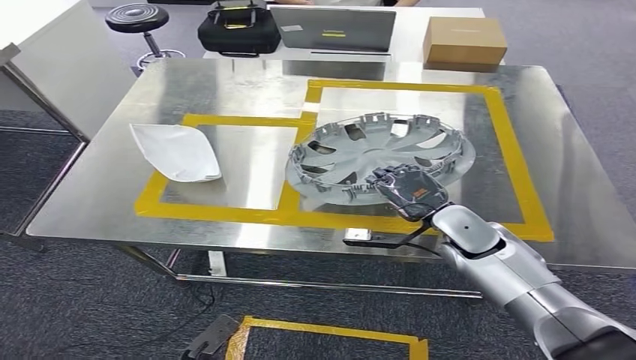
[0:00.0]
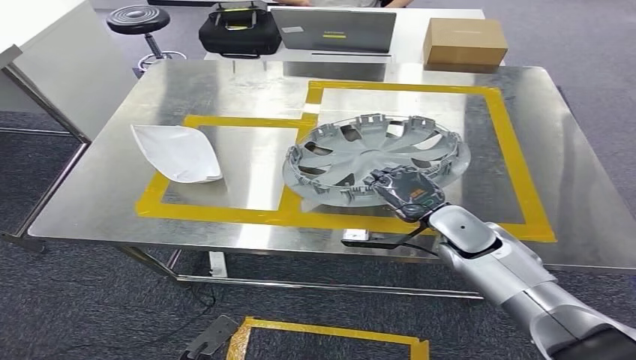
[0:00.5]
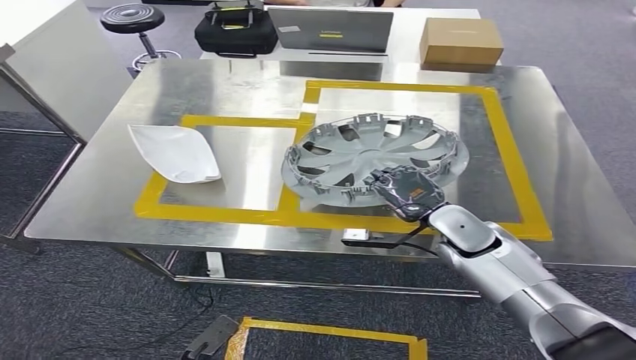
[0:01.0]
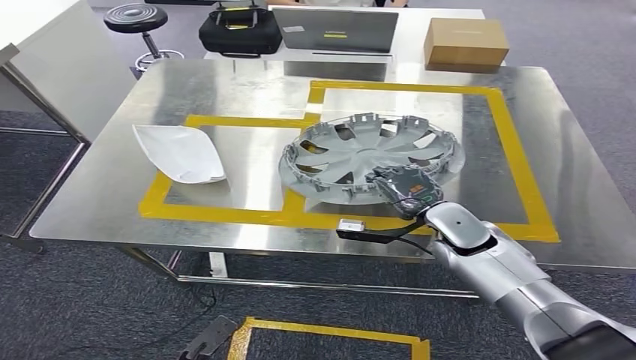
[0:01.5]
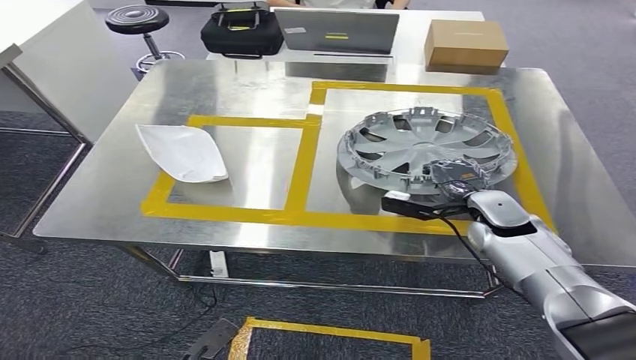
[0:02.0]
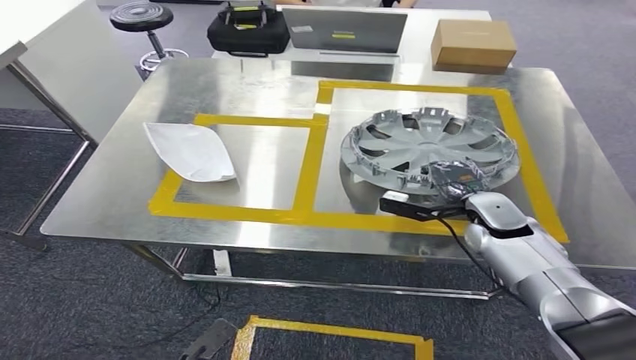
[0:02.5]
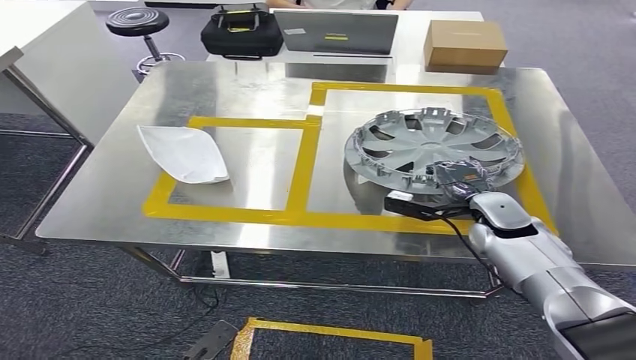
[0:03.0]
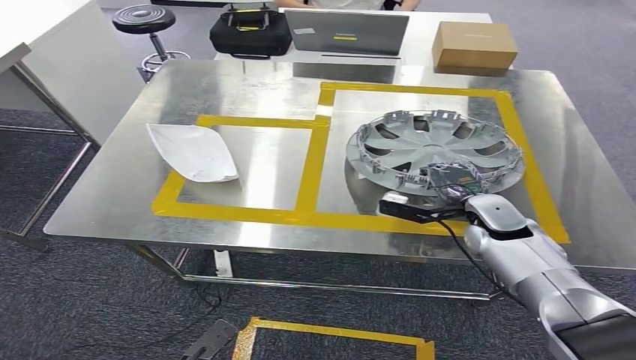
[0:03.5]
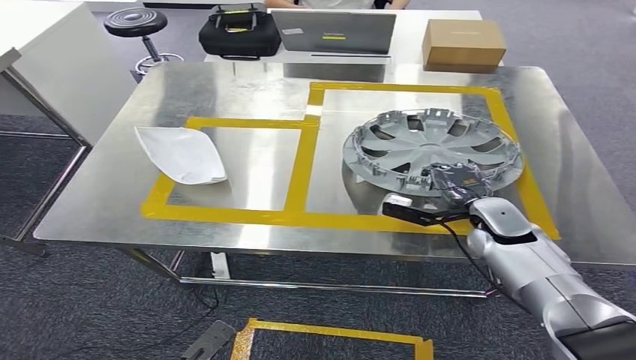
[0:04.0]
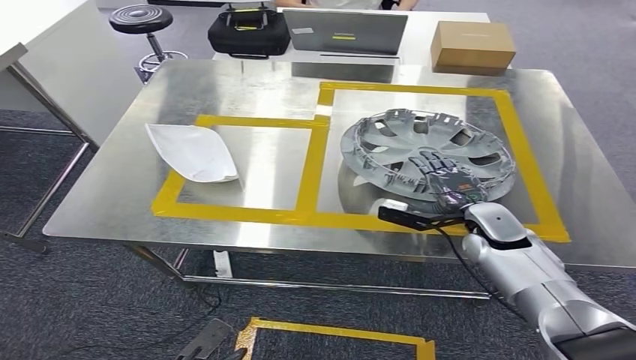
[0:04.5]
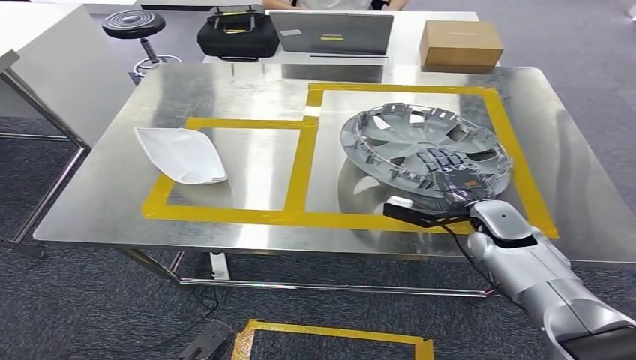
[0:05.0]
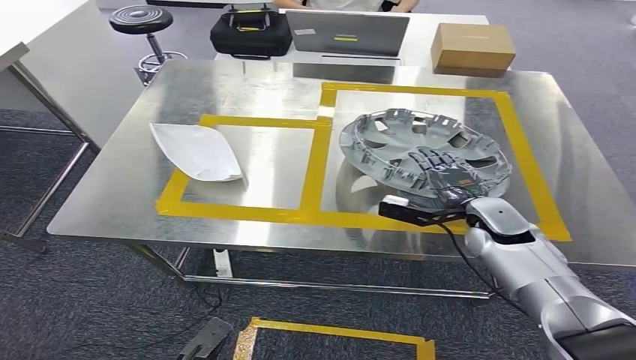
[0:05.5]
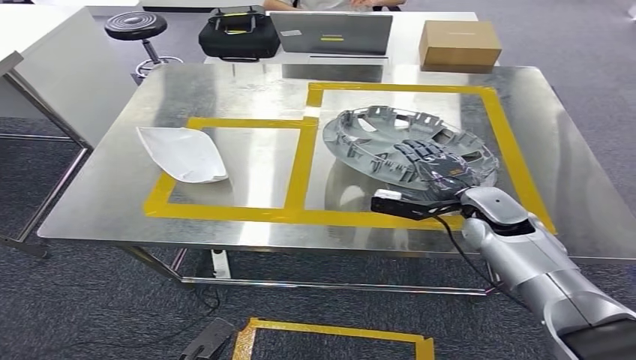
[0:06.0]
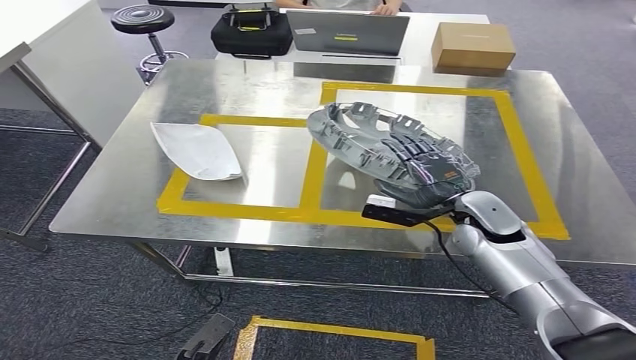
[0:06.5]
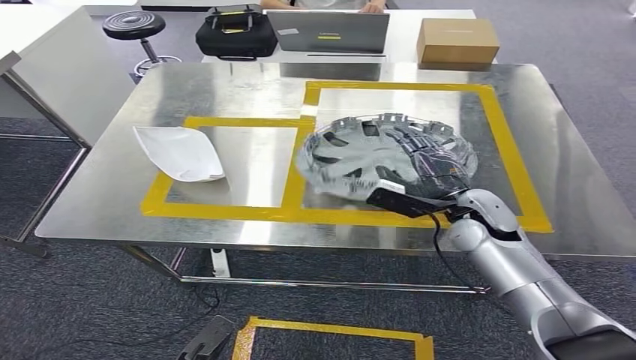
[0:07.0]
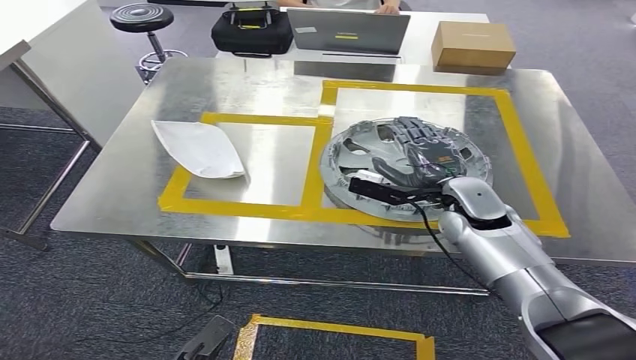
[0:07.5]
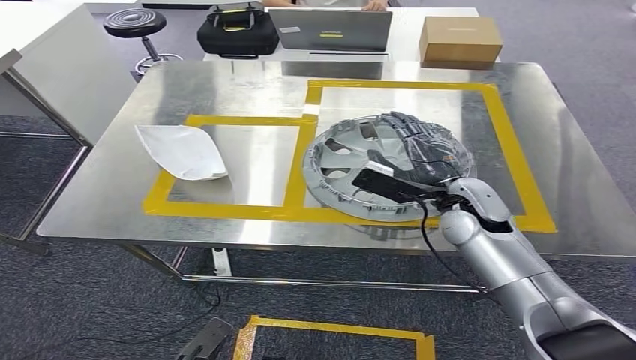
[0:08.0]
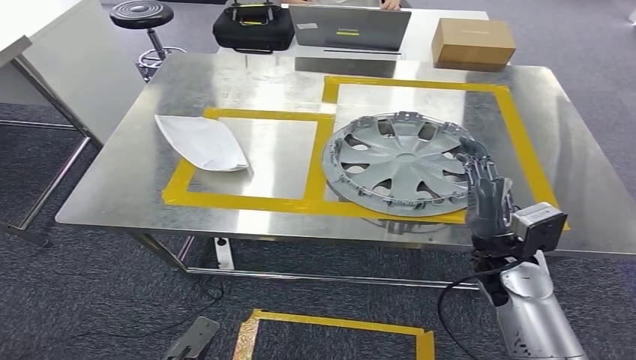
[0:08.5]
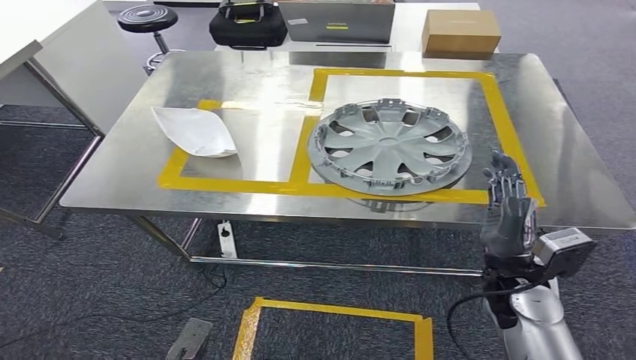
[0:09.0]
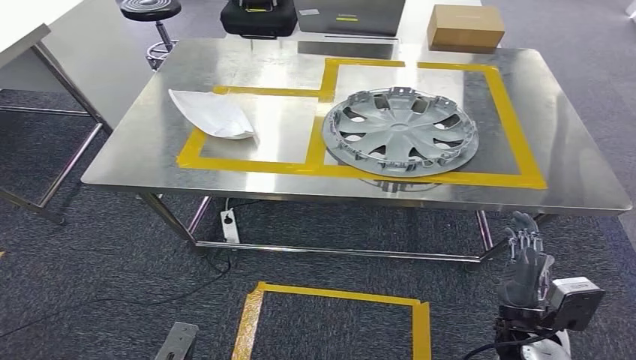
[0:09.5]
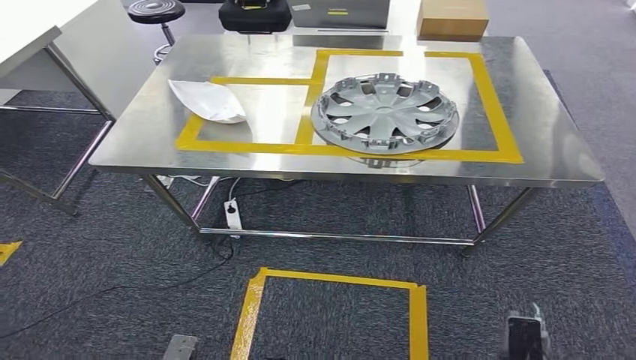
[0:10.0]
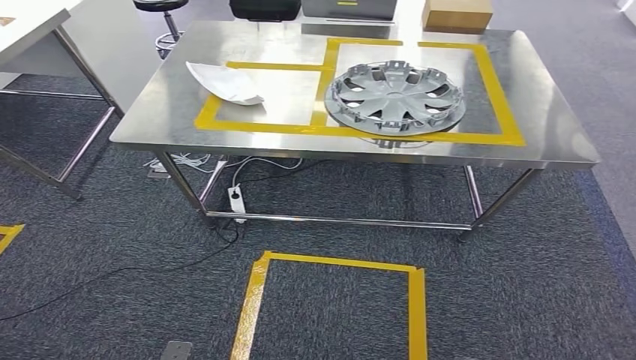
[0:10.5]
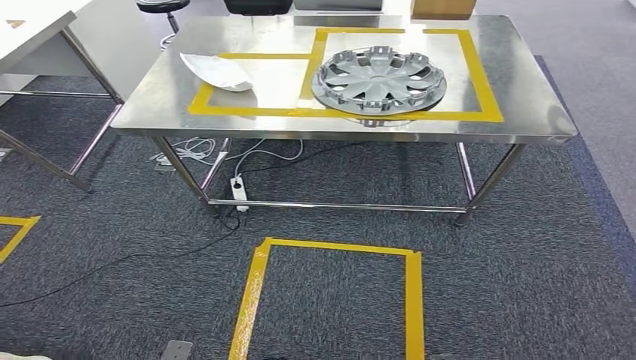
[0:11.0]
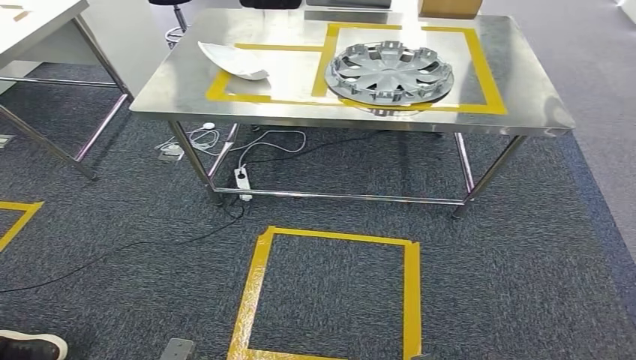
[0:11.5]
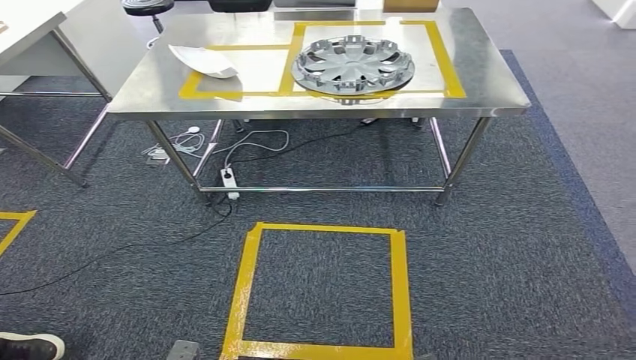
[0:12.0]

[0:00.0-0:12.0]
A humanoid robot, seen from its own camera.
Step, 0:00.0 to 0:08.0: Insert the small parts into the corresponding slots on the workbench.
0:00.0 to 0:02.0: The right hand shifts roughly 5 cm to the right.
0:02.0 to 0:06.0: The hands stay close to where they were, moving slightly.

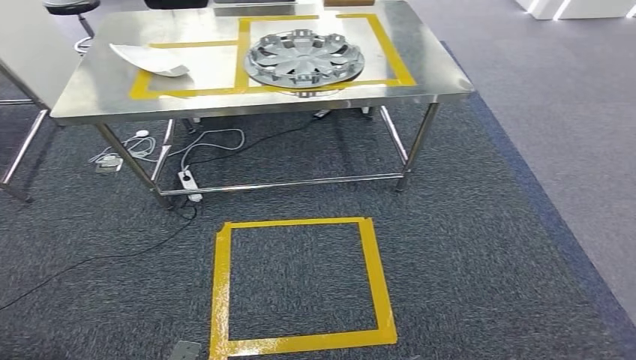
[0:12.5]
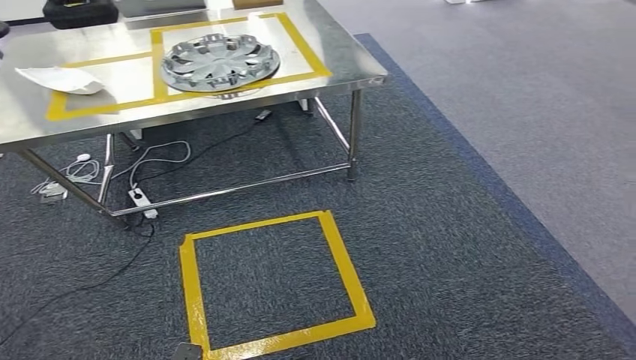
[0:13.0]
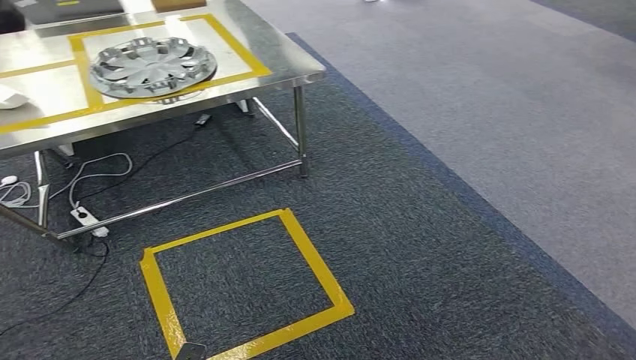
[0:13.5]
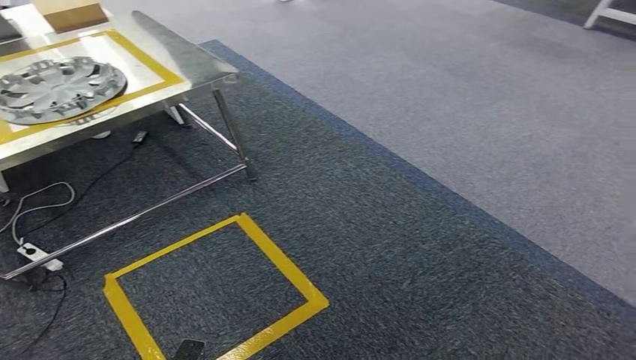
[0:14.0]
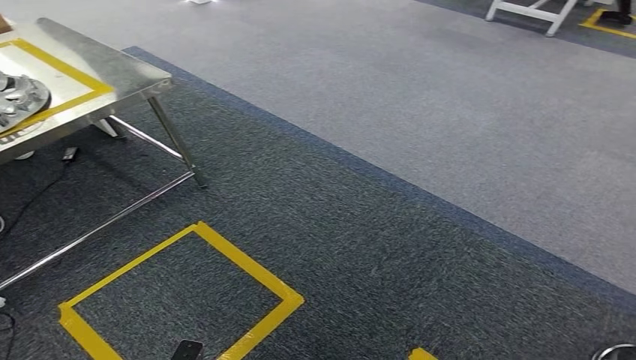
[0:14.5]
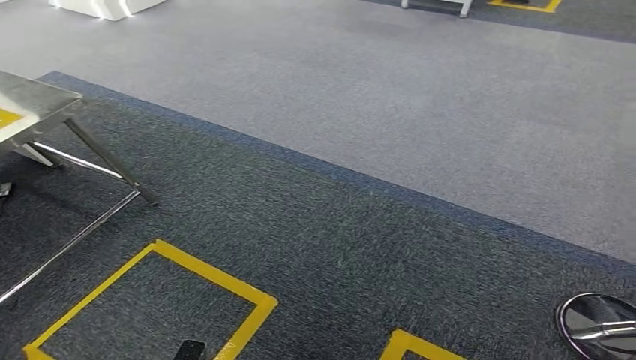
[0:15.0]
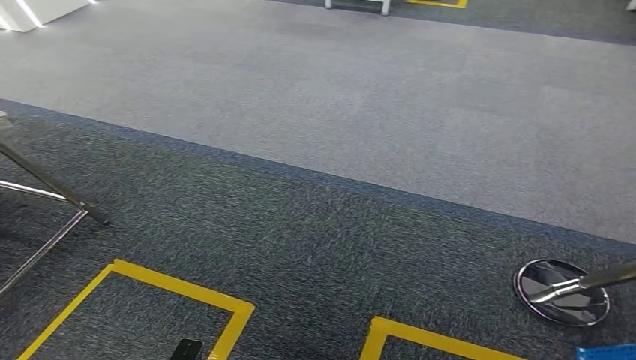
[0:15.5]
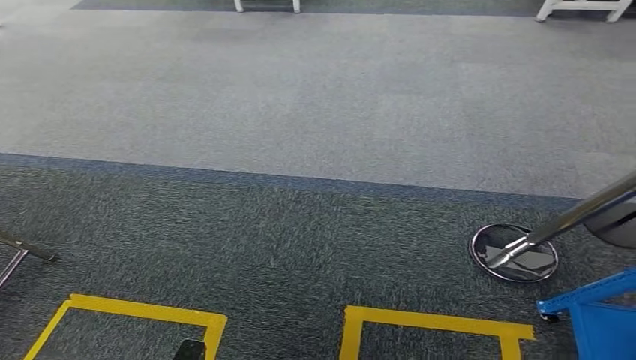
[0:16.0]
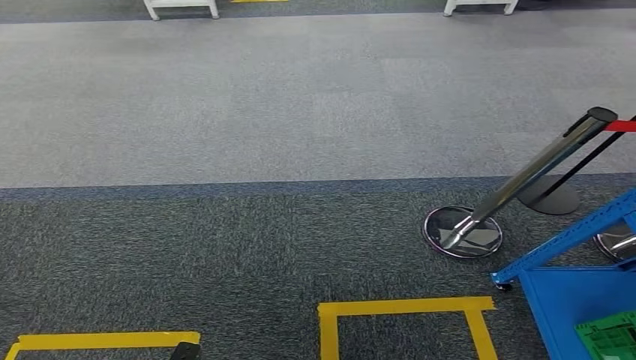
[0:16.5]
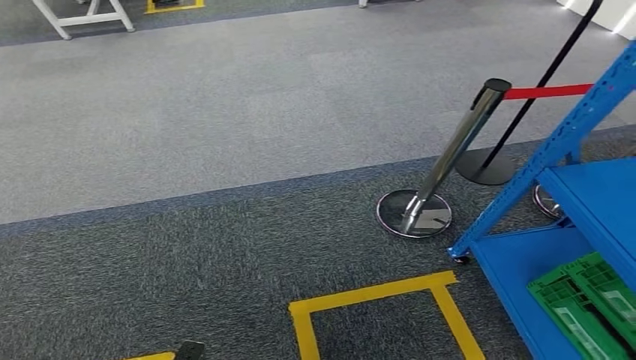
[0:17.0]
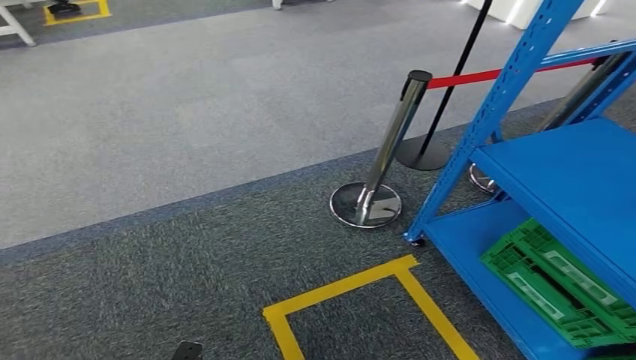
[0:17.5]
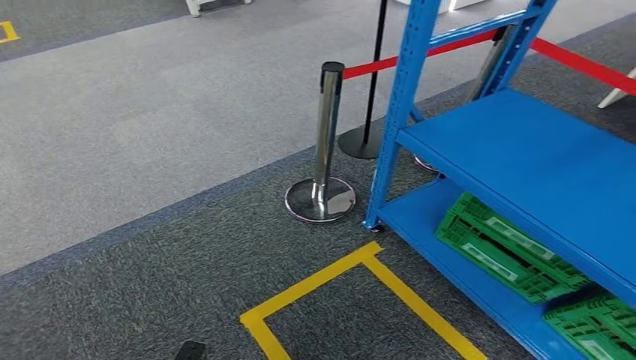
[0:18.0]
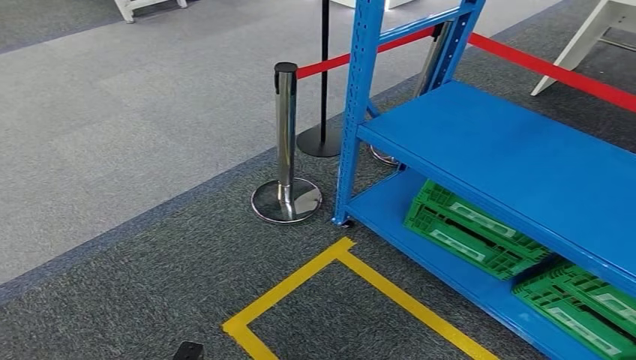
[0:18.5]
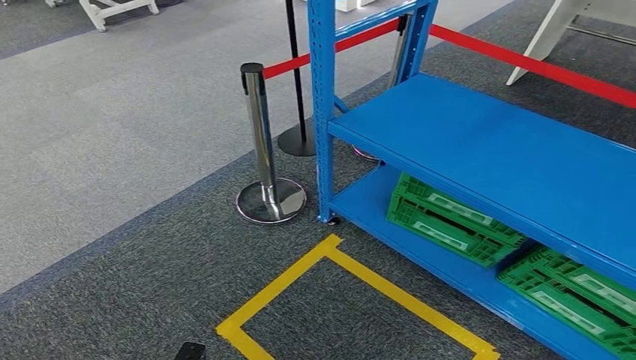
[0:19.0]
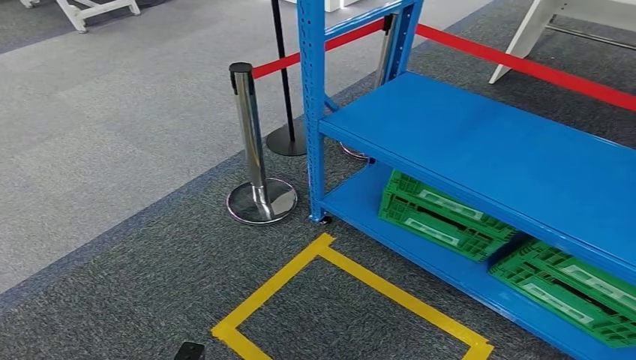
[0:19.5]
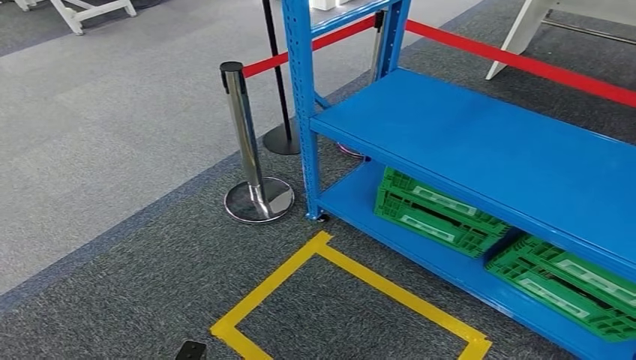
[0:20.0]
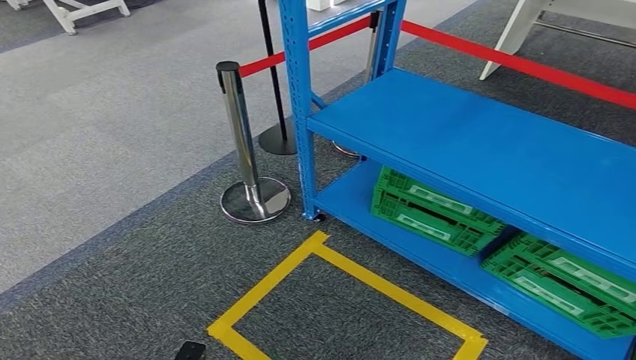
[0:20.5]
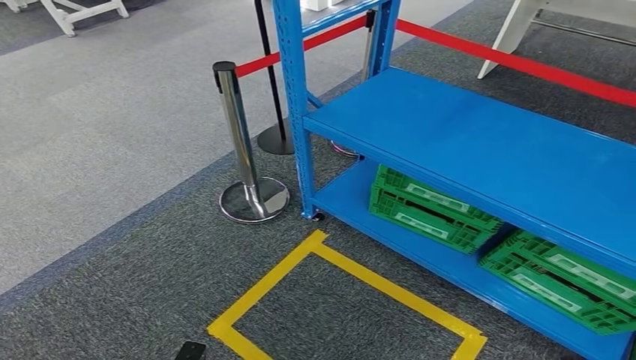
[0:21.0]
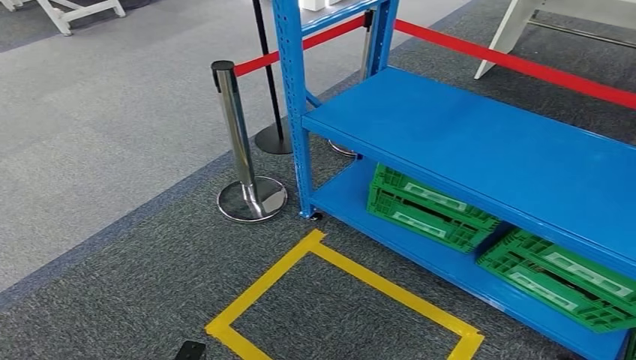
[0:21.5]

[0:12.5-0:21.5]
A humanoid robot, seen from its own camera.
0:19.5 to 0:21.5: The two hands keep their place.
